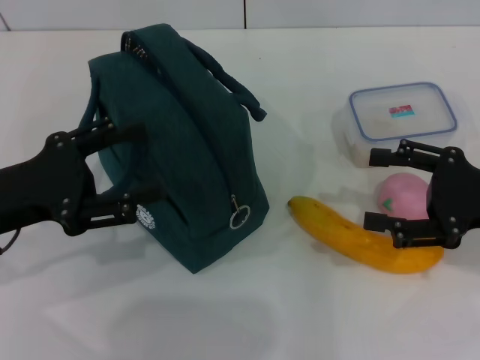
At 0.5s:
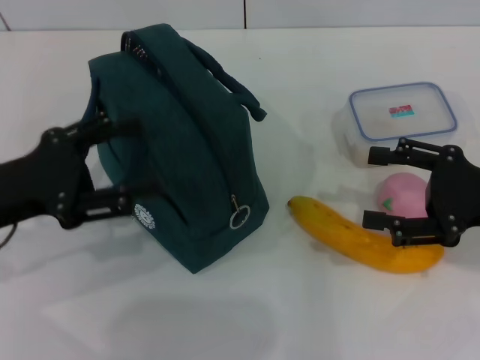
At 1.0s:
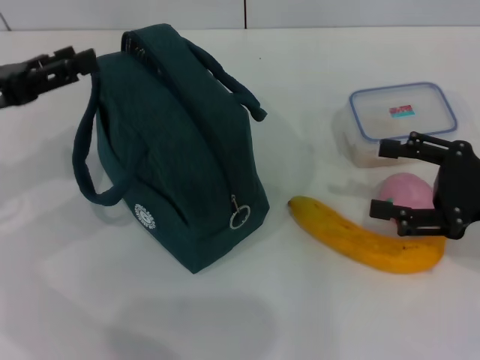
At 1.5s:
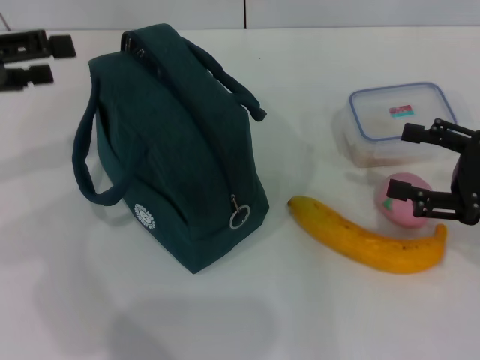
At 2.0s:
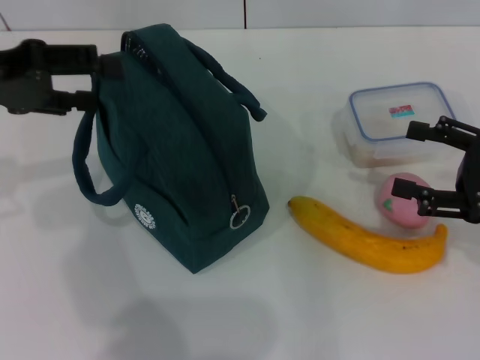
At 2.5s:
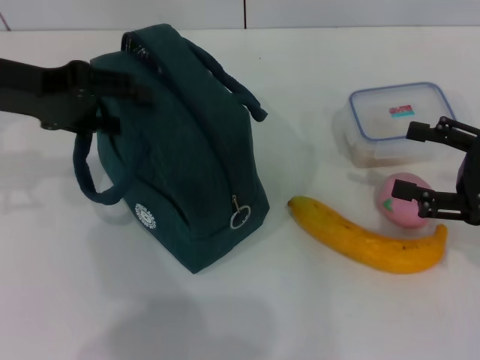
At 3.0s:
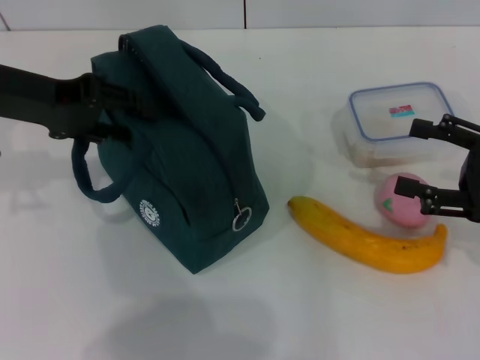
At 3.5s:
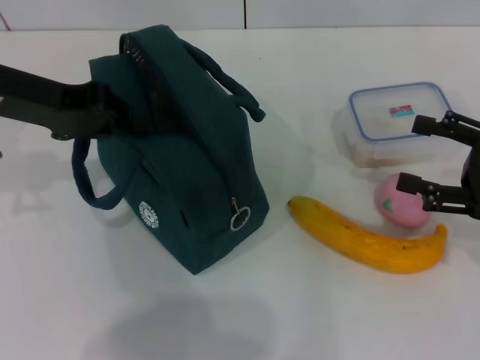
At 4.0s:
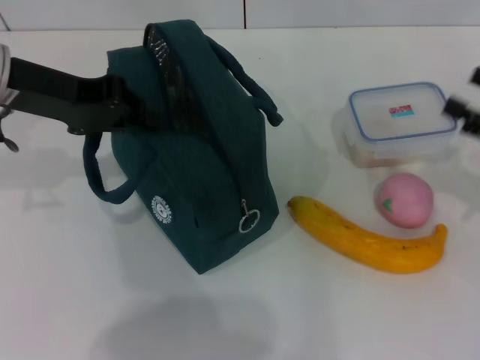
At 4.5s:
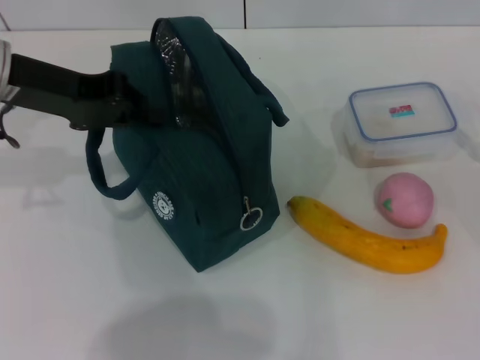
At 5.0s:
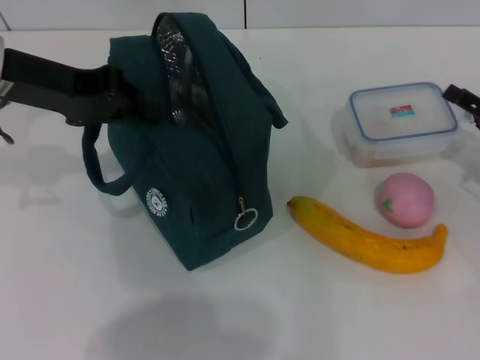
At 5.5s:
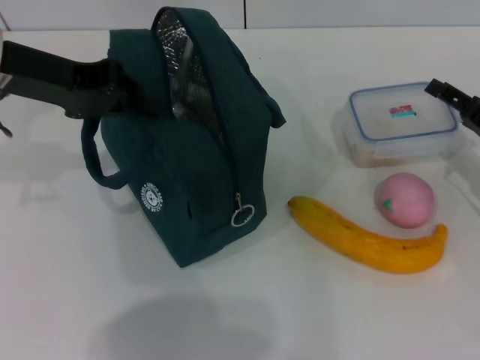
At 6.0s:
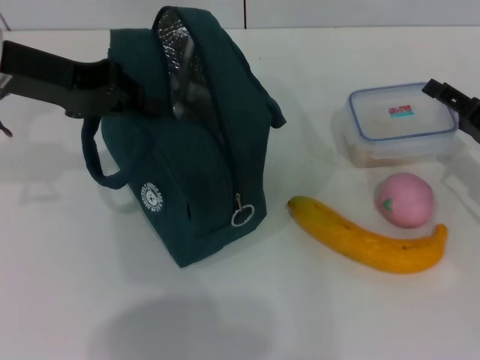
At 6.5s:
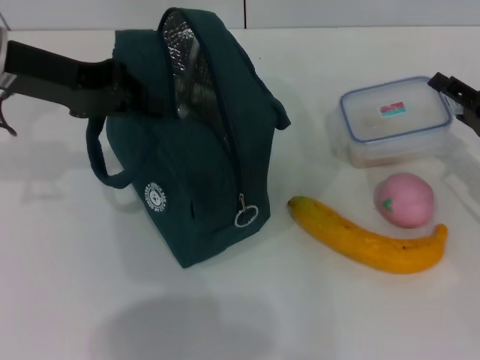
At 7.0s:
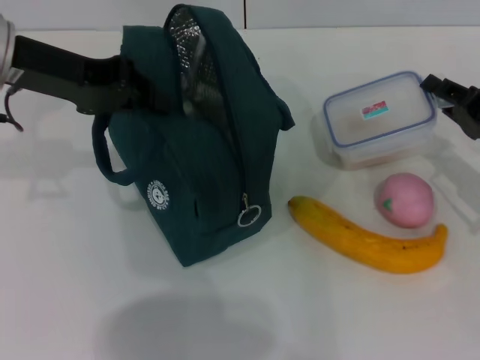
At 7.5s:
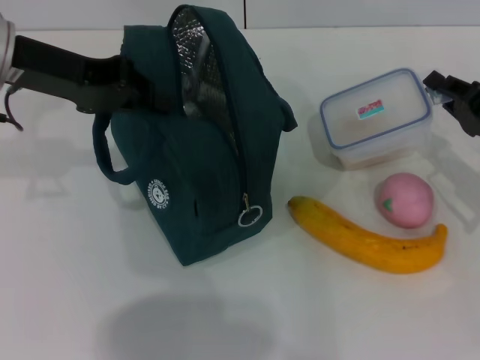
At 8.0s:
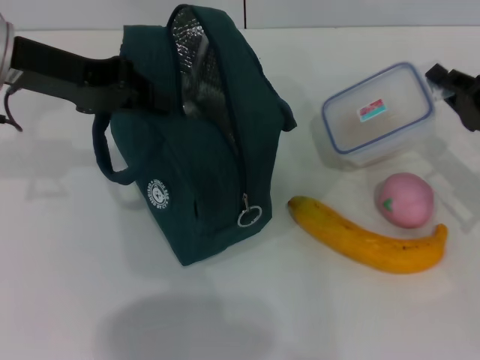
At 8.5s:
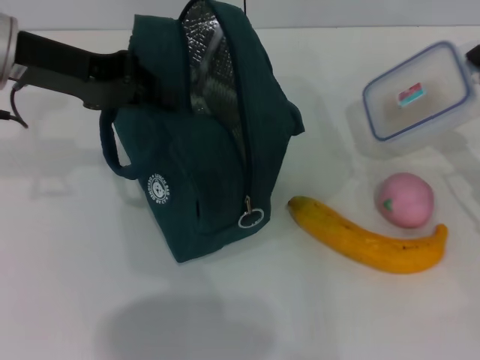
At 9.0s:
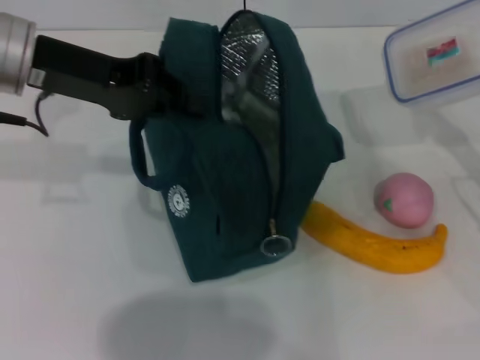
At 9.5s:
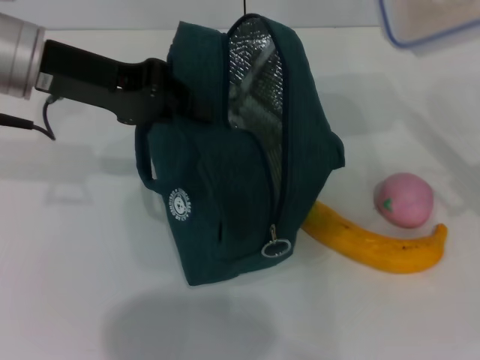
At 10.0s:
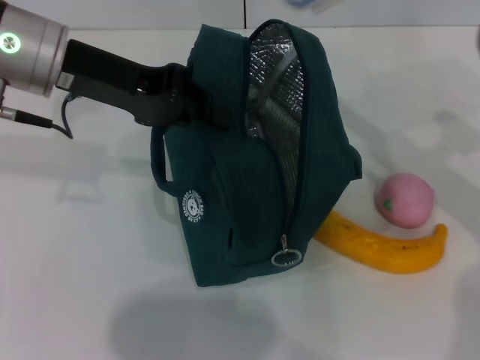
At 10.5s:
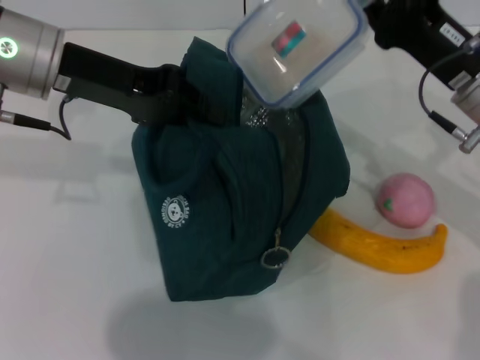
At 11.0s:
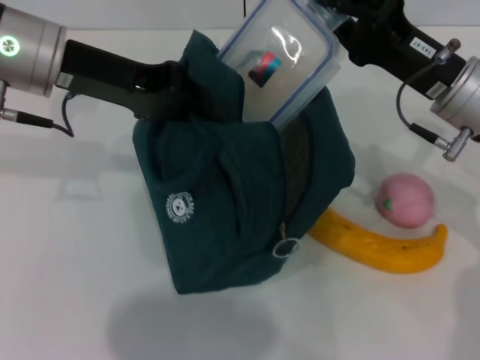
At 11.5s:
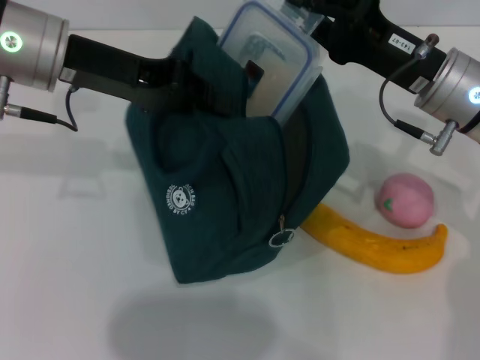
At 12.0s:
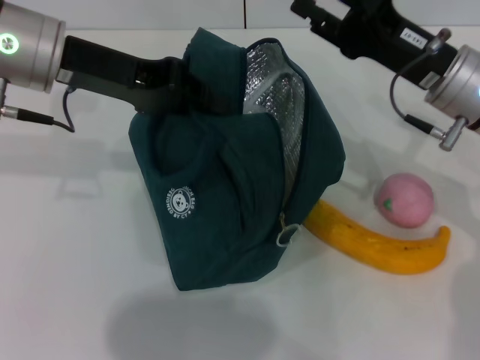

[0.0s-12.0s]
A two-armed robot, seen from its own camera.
Step, 0.0s to 3.5s: Hold the lunch bag with your left hand.
Step, 4.0s to 7.5s: Pick up the lunch box with your right hand.
Step, 8.0s to 11.5s: Place the lunch box into the lunch bag with your right hand.
0.0s to 2.0s: The left gripper shifts roughly 15 cm upward and forward.
2.0s to 4.0s: The left gripper is displaced to the right by about 5 cm, and closes its fingers.
4.0s to 6.0s: The right gripper heads downward, covering roughly 5 cm.
6.0s to 8.0s: The right gripper closes.
8.0s to 10.0s: The right gripper shifts about 15 cm upward and to the left.
10.0s to 12.0s: The right gripper shifts by approximately 5 cm.

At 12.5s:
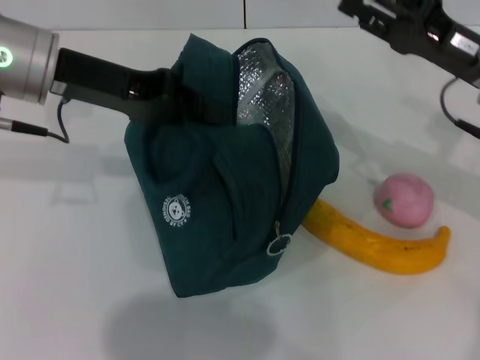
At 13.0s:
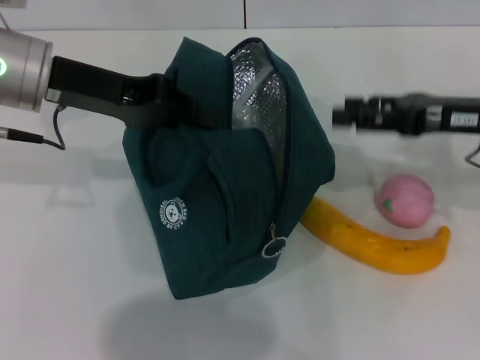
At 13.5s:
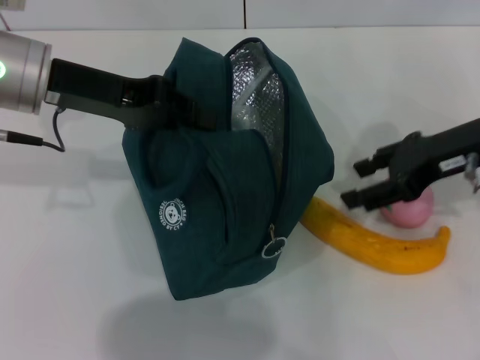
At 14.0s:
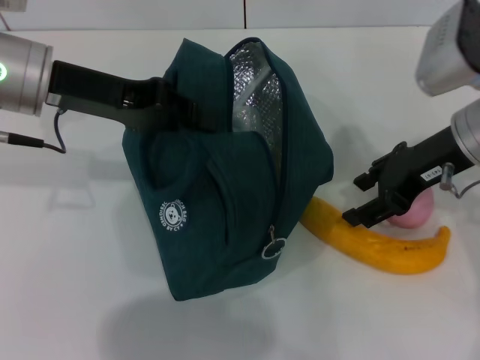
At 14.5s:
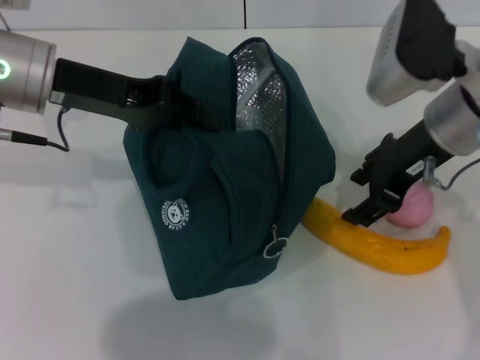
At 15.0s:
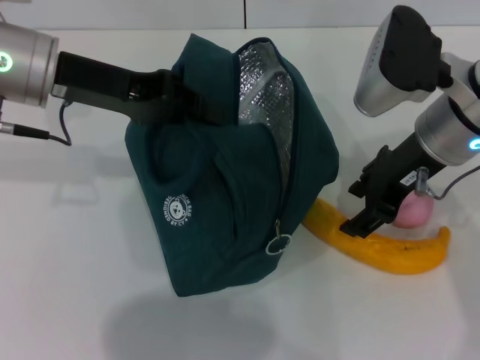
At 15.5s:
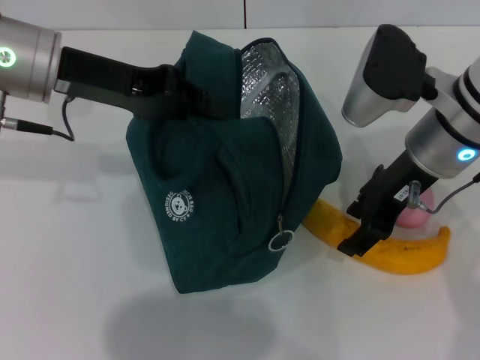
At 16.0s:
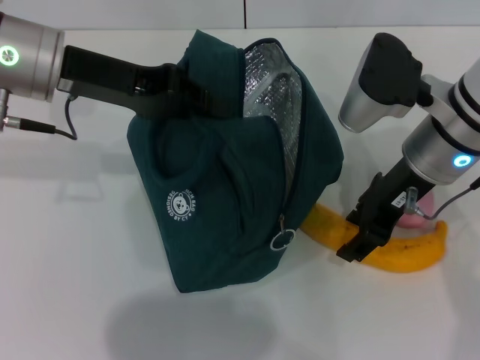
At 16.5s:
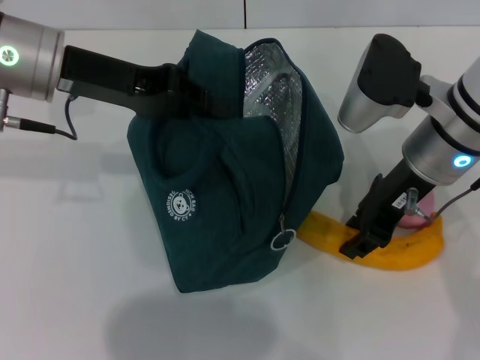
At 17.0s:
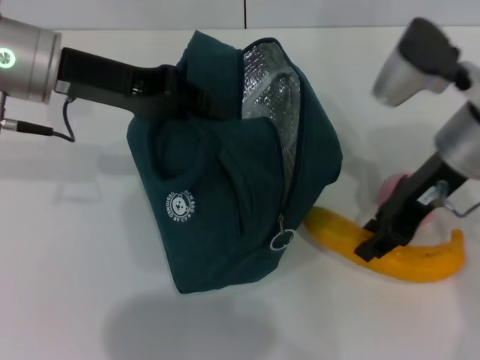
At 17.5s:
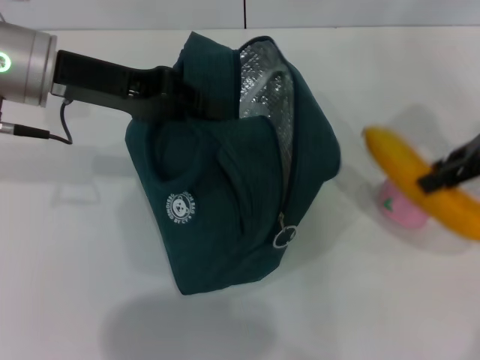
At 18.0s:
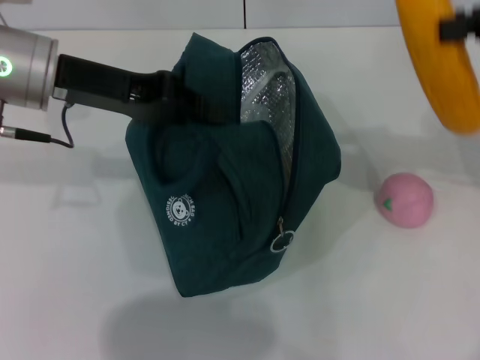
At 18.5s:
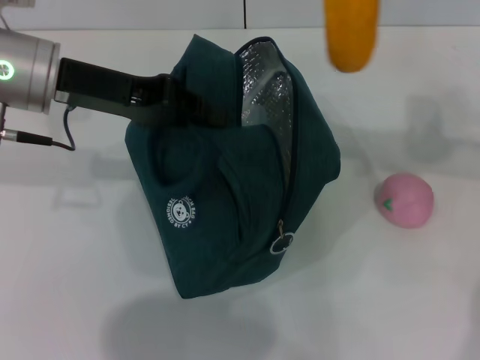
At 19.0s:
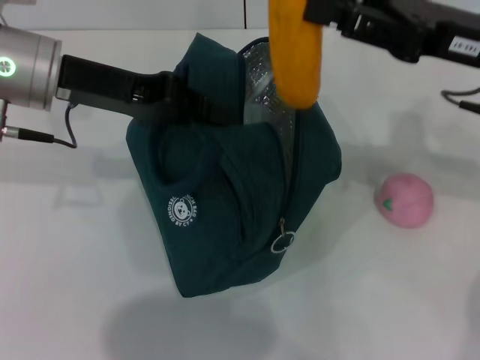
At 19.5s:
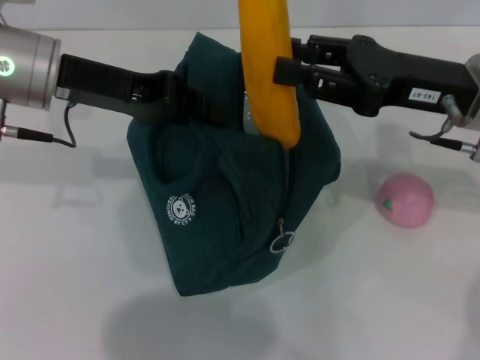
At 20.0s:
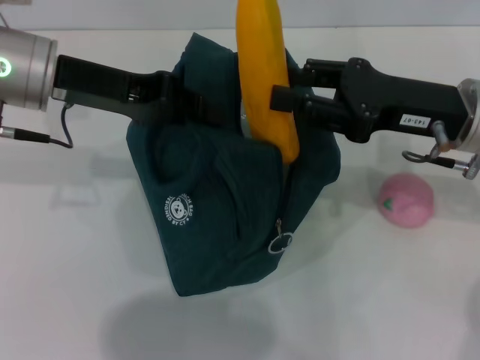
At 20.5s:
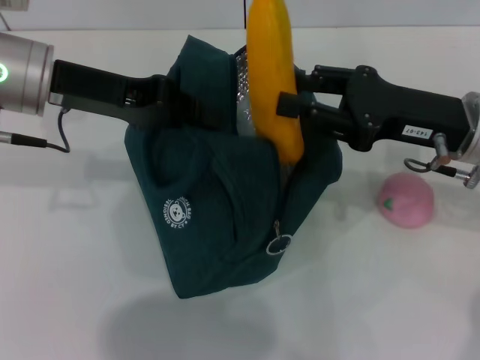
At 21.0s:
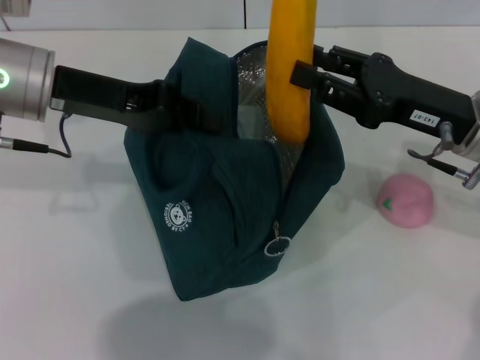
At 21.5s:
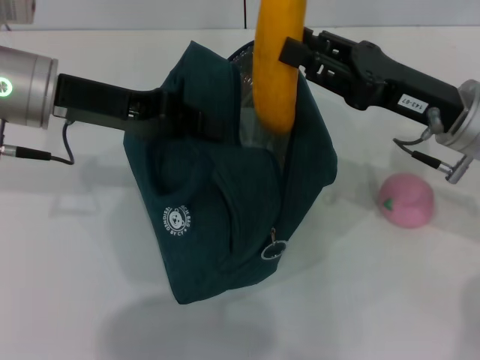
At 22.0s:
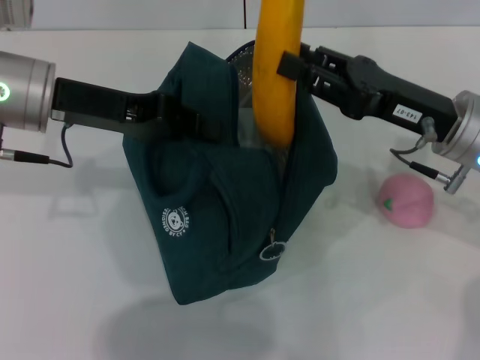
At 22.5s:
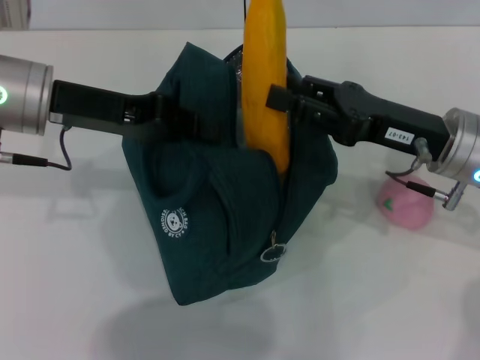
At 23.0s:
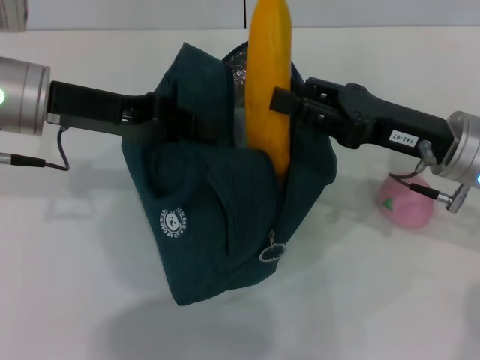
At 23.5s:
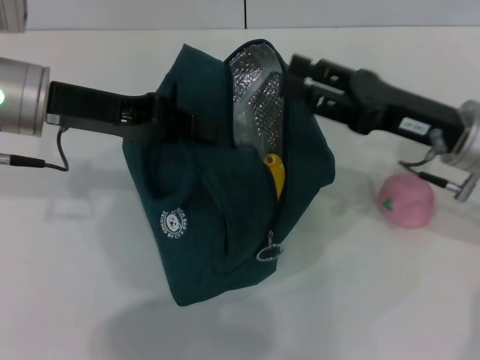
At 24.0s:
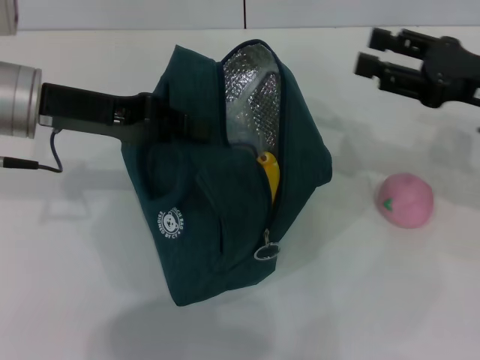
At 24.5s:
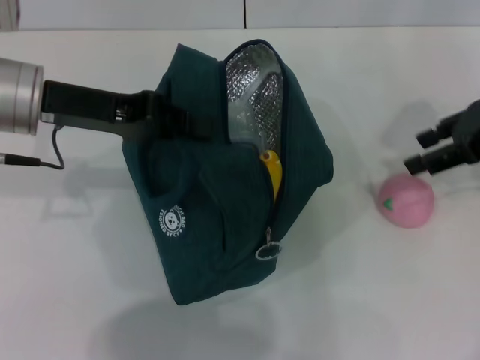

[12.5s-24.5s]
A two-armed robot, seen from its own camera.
Step, 12.5s to 16.0s: Take the banana with your right hand.
Step, 16.5s to 23.0s: Put the banana into the lunch bag with your right hand.
12.5s to 14.5s: The right gripper travels to the left by about 5 cm.
16.5s to 18.5s: The right gripper is displaced to the right and upward by roughly 15 cm.
18.5s to 20.5s: The right gripper goes some 10 cm downward.
20.5s to 22.5s: The grippers stay close to where they were, moving slightly.
22.5s to 24.5s: The right gripper goes roughly 10 cm to the right and upward.

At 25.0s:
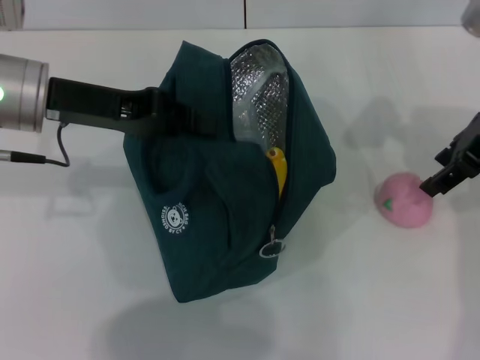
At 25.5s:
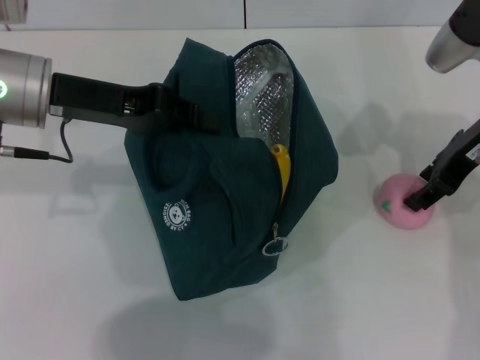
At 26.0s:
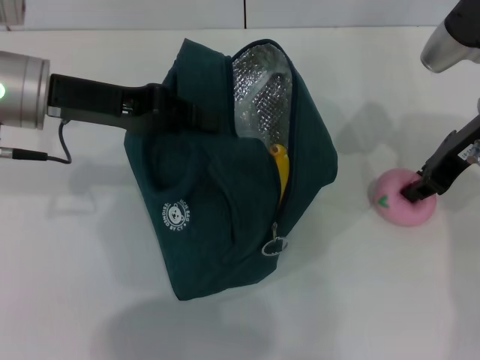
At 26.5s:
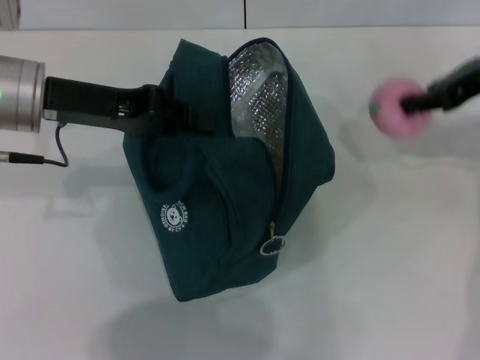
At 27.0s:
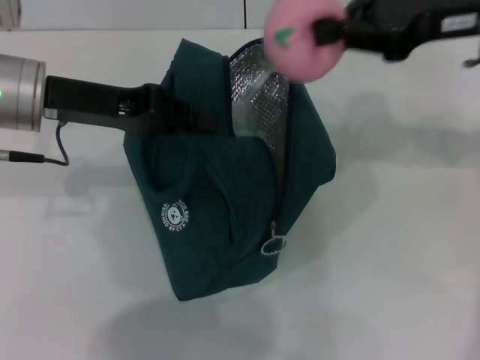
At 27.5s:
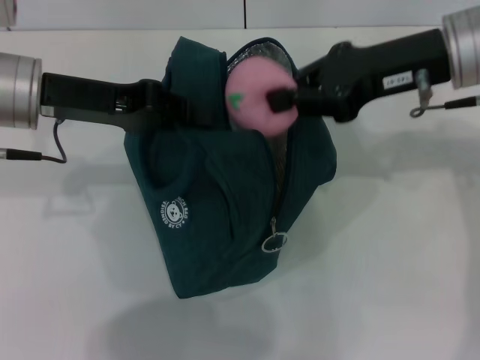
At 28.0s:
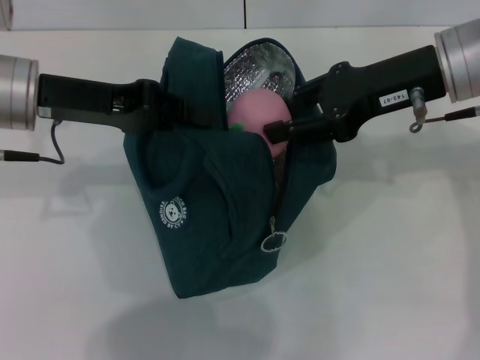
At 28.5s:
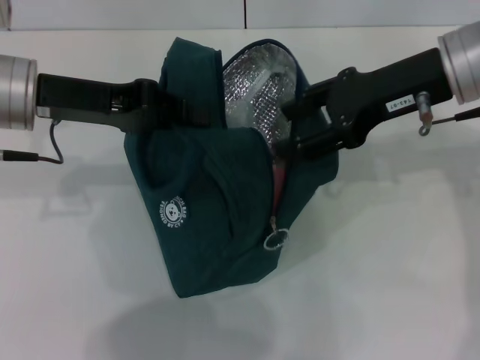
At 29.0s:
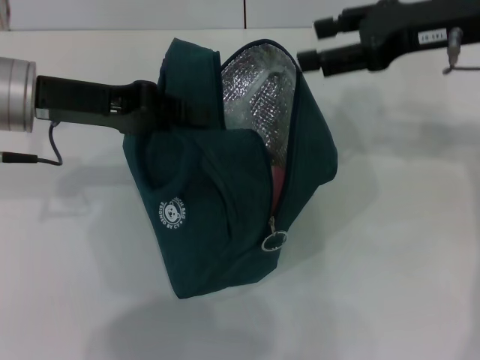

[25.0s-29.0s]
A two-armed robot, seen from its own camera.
25.0s to 27.0s: The right gripper moves roughly 5 cm, and closes.
27.0s to 29.0s: The right gripper opens its fingers.
